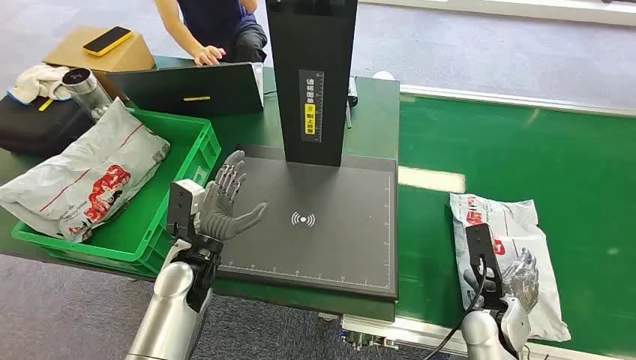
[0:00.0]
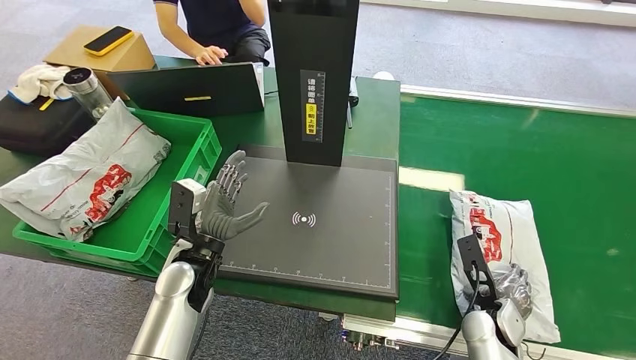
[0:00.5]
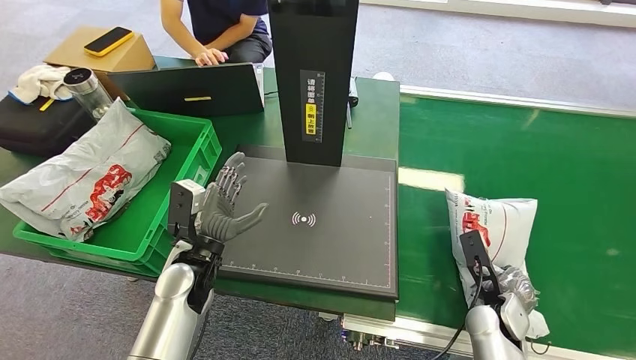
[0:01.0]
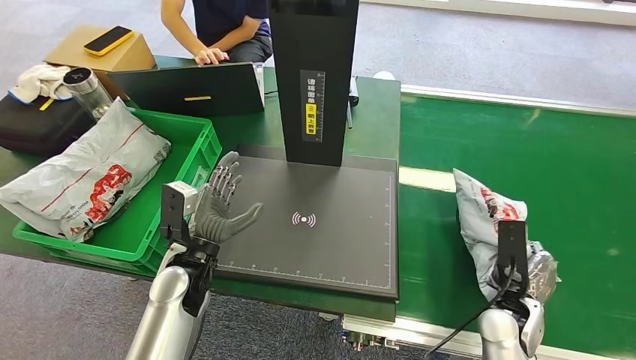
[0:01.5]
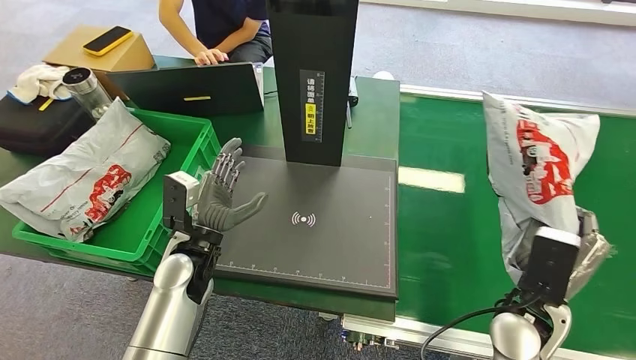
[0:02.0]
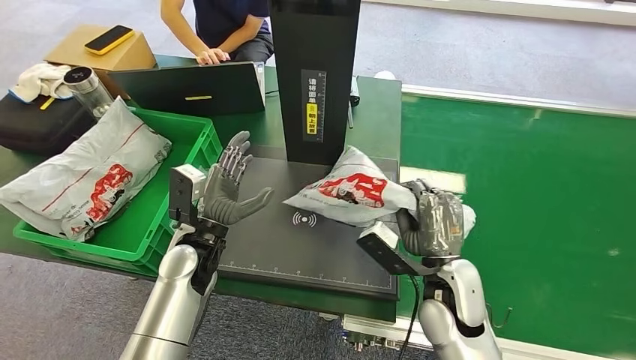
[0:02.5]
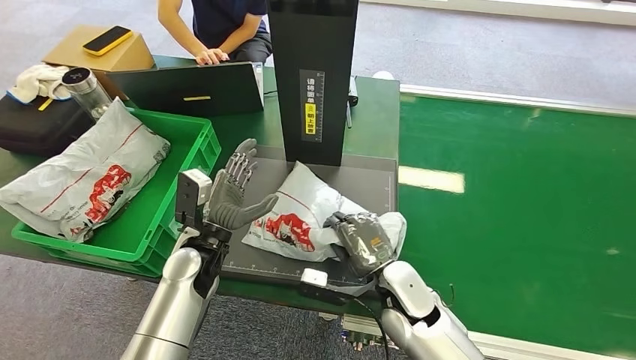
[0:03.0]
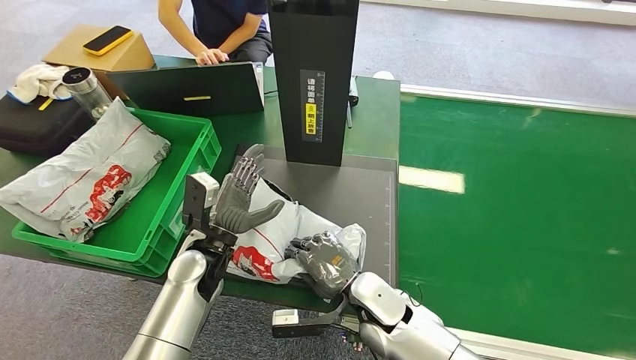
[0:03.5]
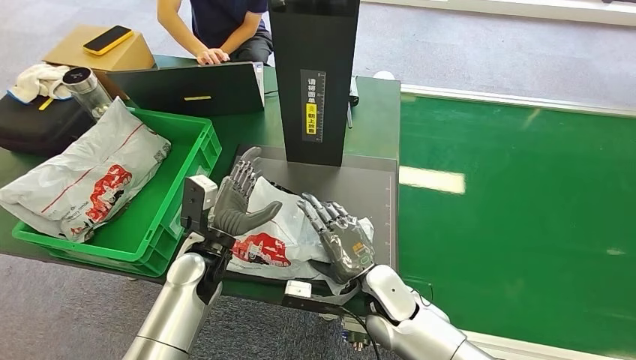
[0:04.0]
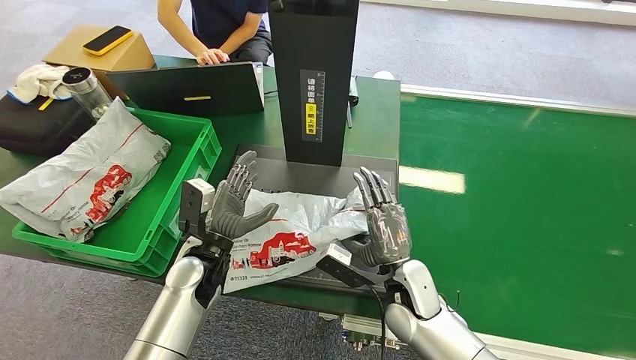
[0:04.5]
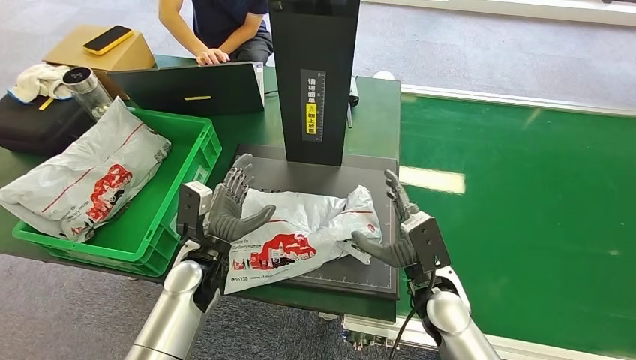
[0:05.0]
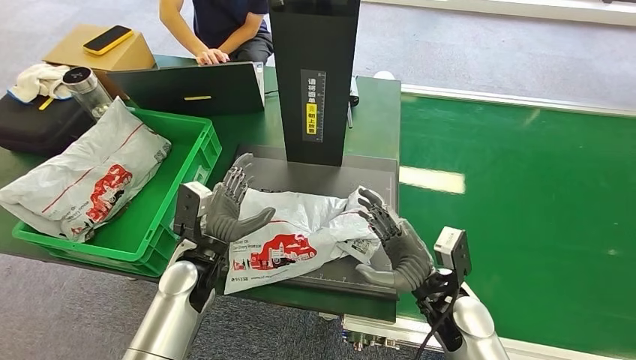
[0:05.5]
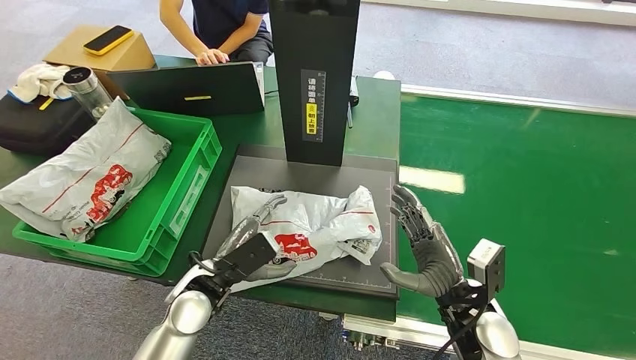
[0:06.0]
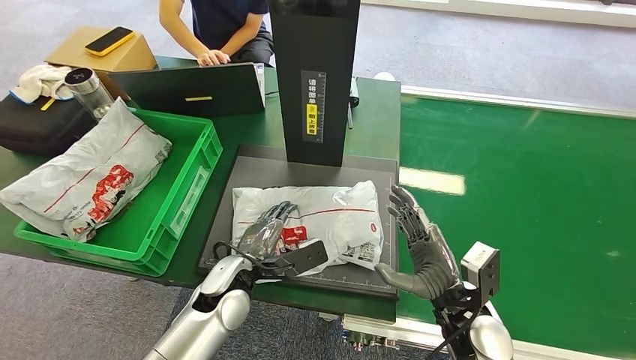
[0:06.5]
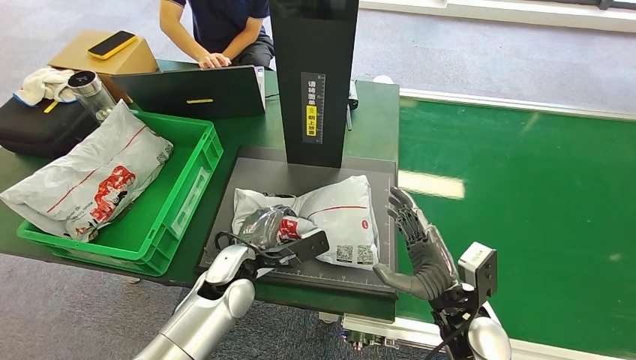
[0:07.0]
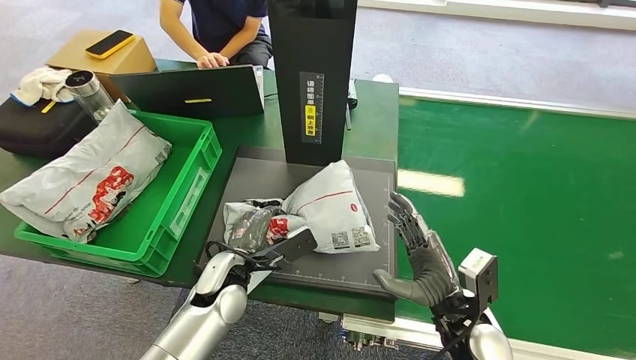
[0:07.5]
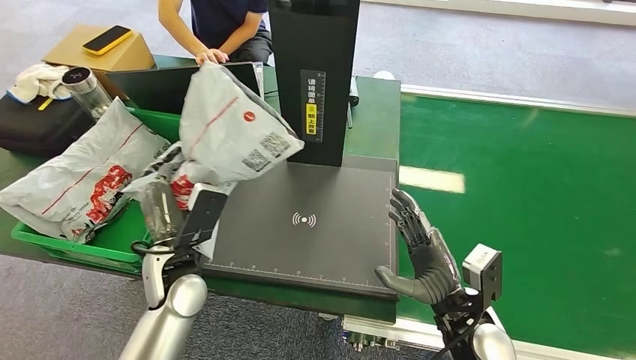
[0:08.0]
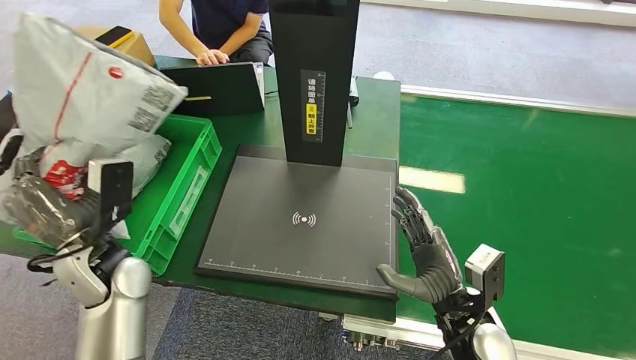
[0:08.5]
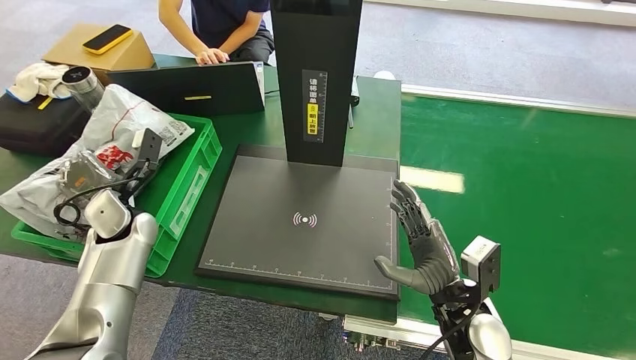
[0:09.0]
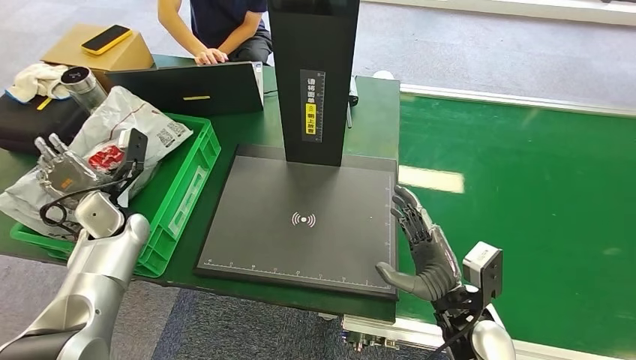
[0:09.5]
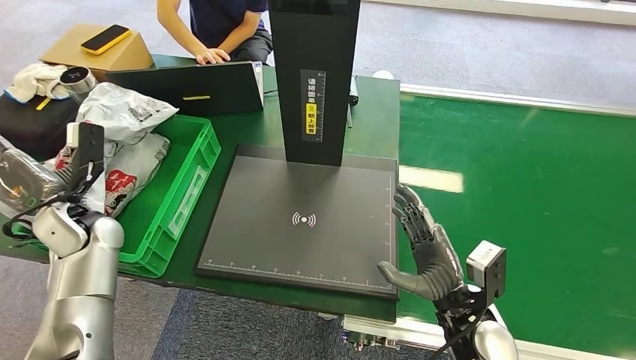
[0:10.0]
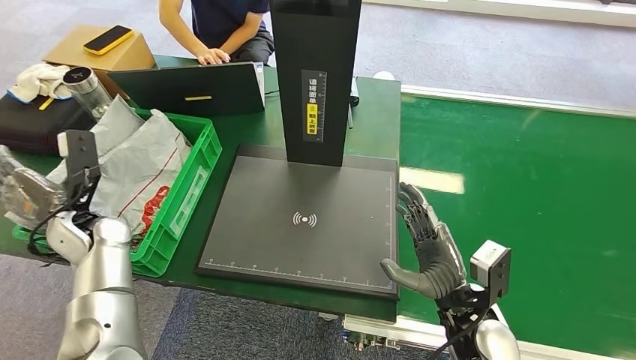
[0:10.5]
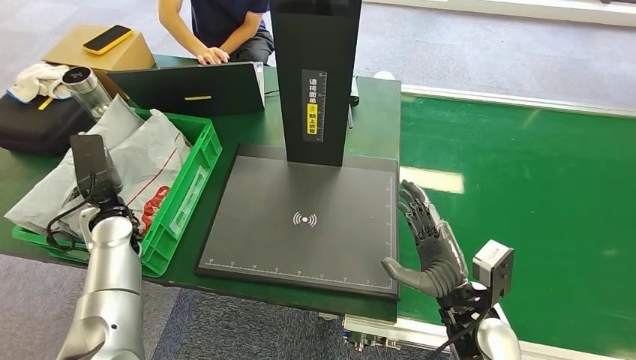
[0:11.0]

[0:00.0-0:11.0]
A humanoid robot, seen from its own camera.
Step, 0:00.0 to 0:02.0: Pick up the package from the conveyor belt.
Step, 0:02.5 to 0:05.0: Place the package onto the inbound machine.
Step, 0:05.5 to 0:08.0: Pick up the package from the inbound machine.
Step, 0:08.5 to 0:11.0: Place the package into the parcel locker.
0:03.5 to 0:05.5: The right hand is displaced to the right by about 10 cm.

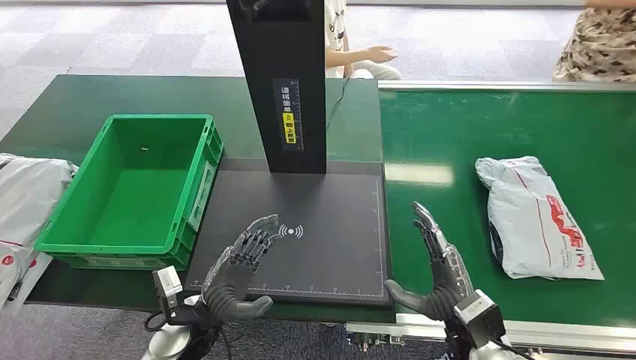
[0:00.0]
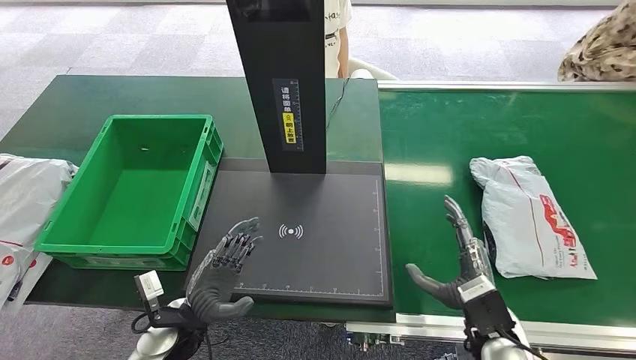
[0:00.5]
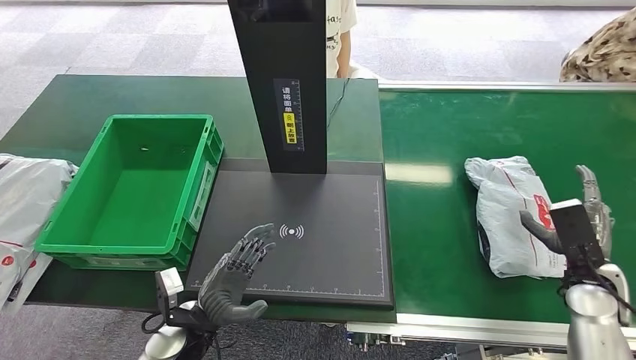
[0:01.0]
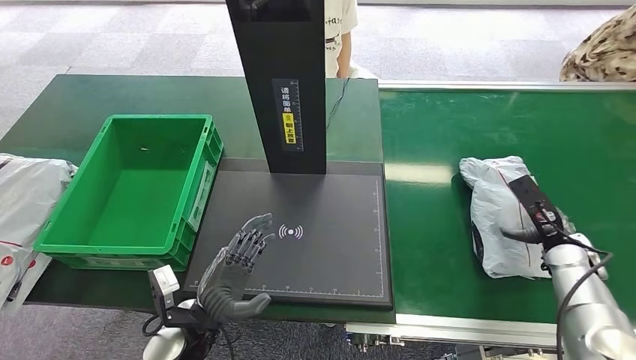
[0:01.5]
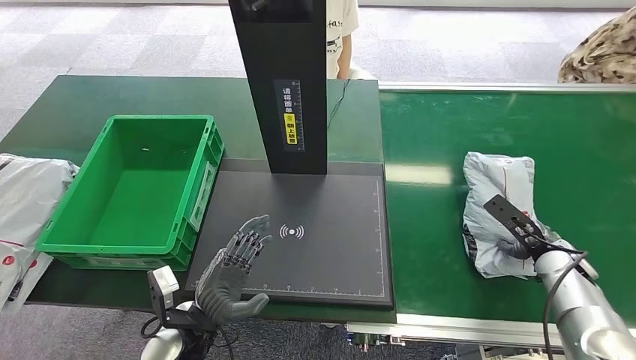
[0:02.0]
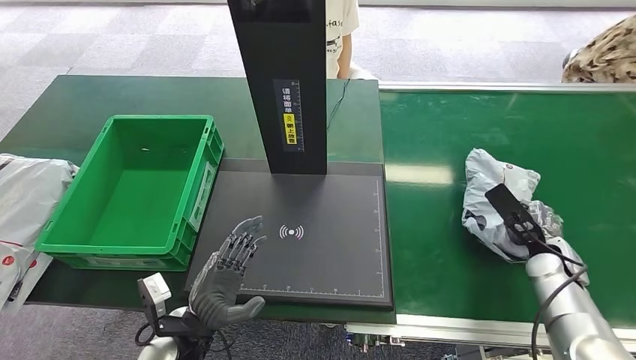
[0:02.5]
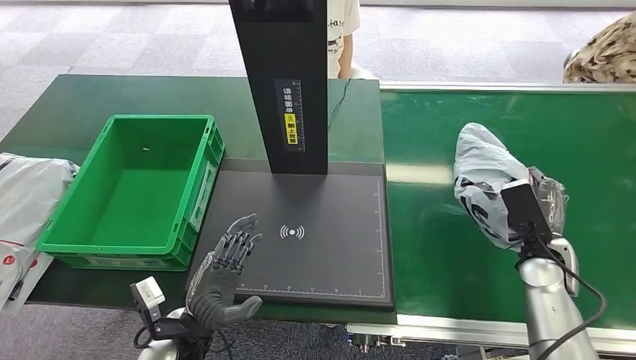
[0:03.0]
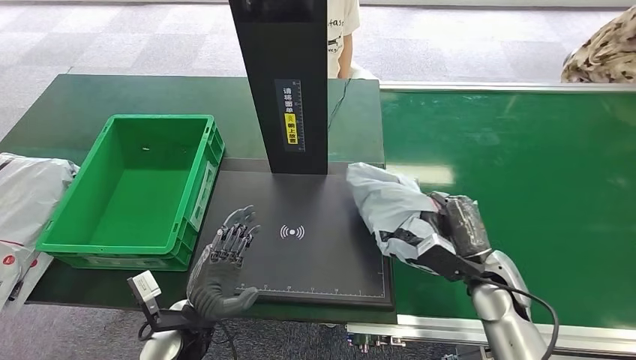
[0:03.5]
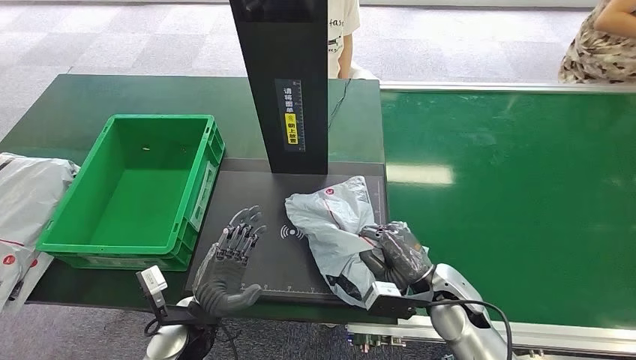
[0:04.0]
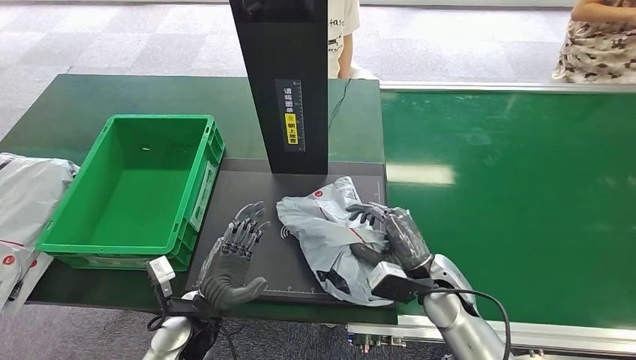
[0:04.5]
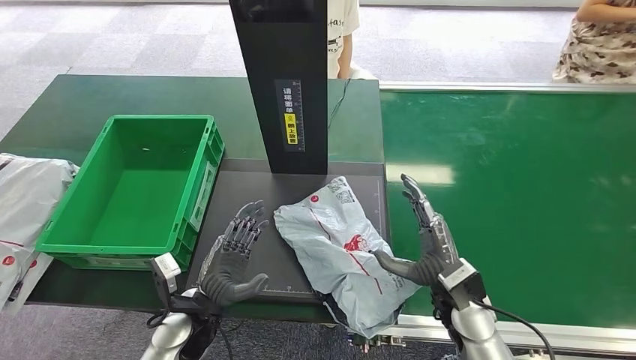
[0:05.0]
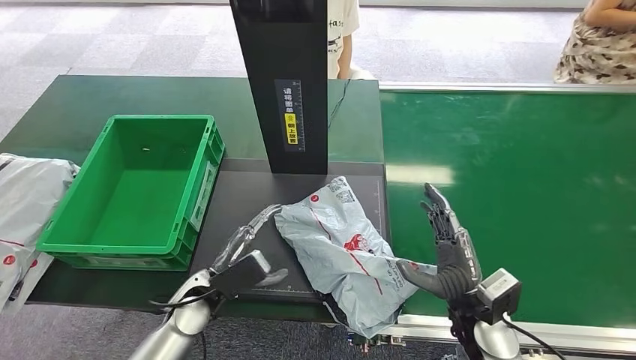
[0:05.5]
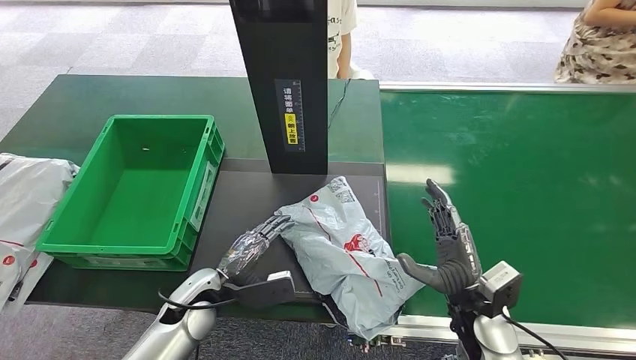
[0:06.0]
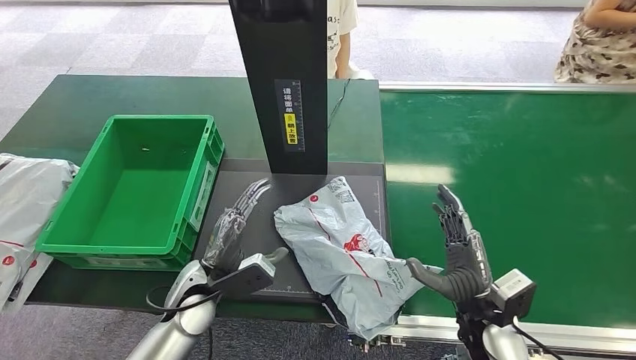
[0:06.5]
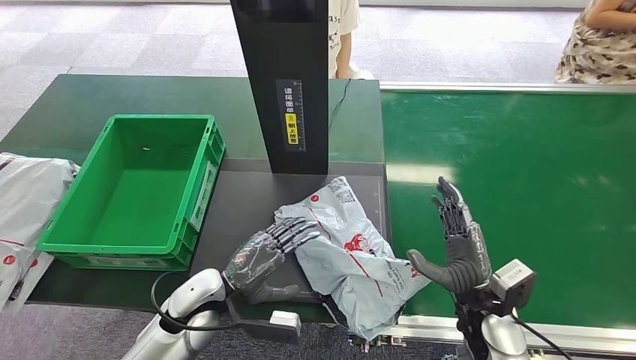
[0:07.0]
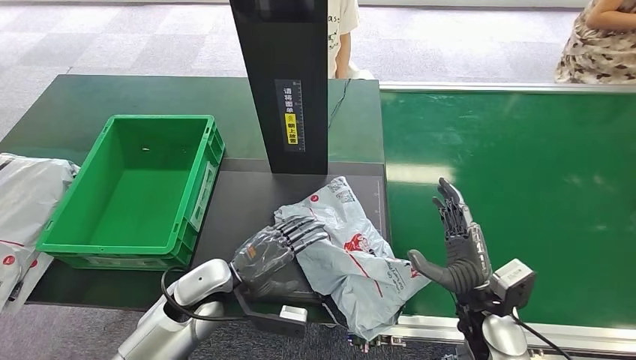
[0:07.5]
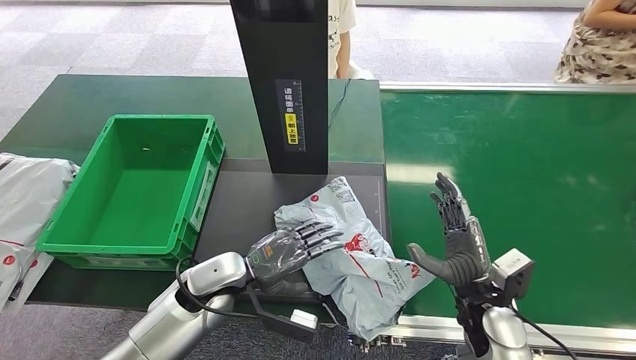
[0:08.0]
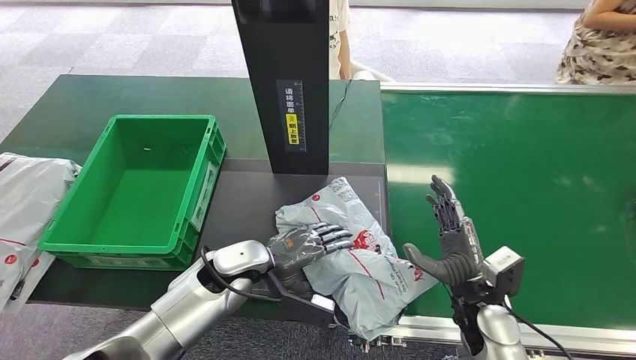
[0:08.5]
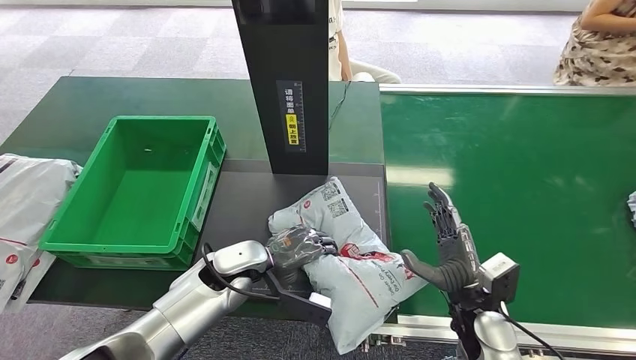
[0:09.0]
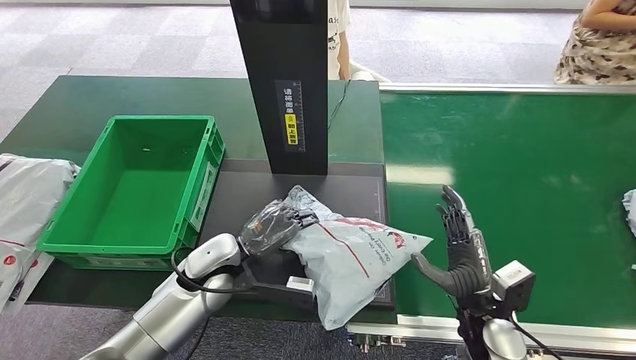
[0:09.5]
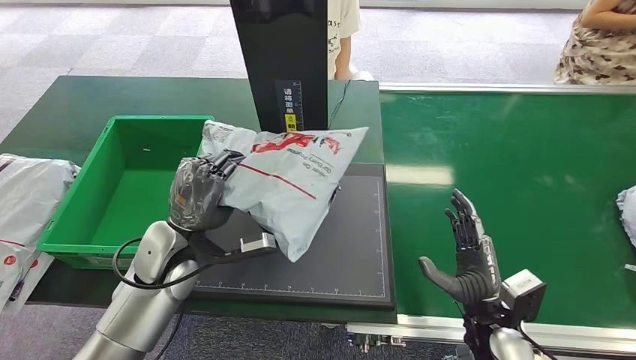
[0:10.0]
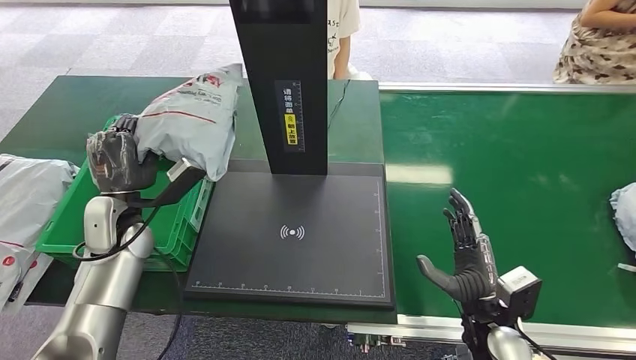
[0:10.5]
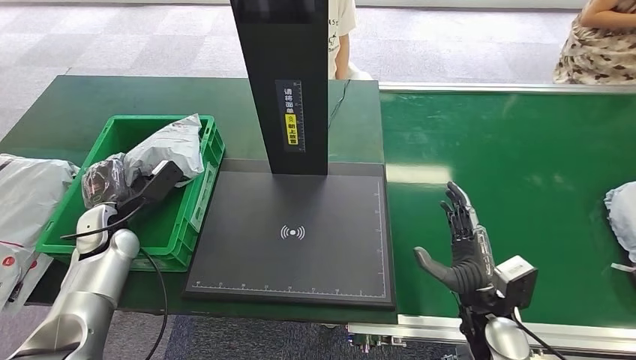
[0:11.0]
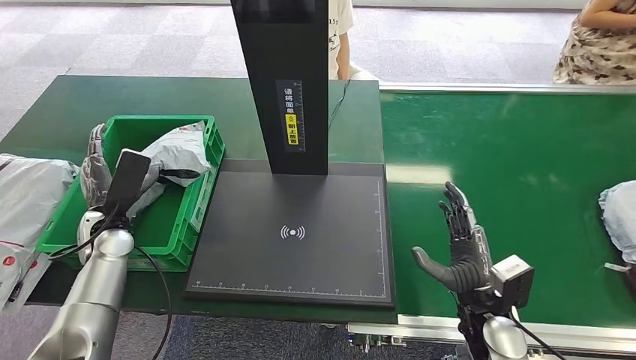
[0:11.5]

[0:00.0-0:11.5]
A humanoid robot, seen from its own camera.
Step, 0:00.0 to 0:03.0: Pick up the package from the conveyor belt.
Step, 0:03.5 to 0:05.0: Place the package onto the inbound machine.
Step, 0:05.5 to 0:09.5: Pick up the package from the inbound machine.
Step, 0:10.0 to 0:11.5: Place the package into the parcel locker.
0:04.0 to 0:06.0: The left hand is displaced forward by about 5 cm.
0:09.5 to 0:11.5: The left hand shifts roughly 20 cm to the left.
